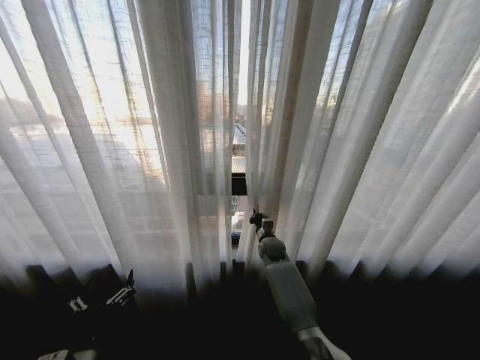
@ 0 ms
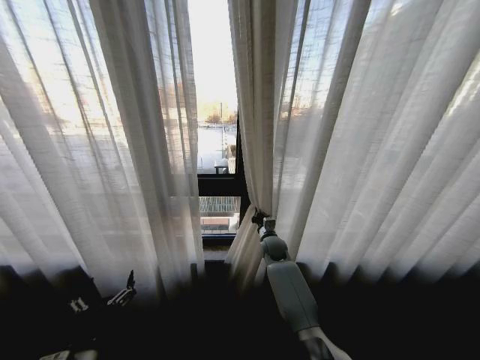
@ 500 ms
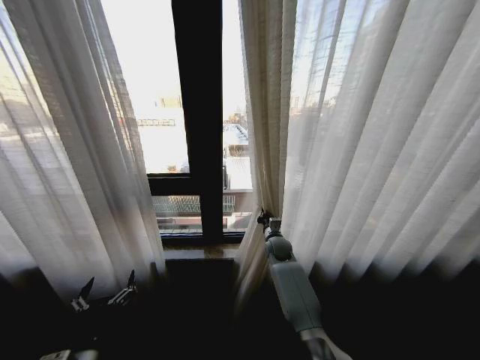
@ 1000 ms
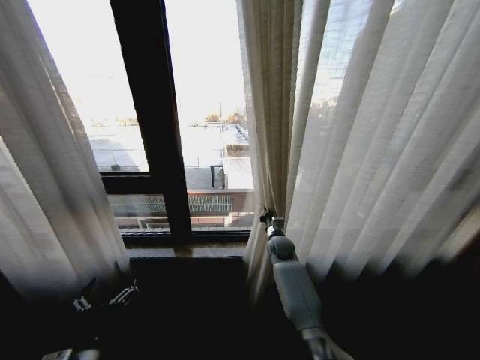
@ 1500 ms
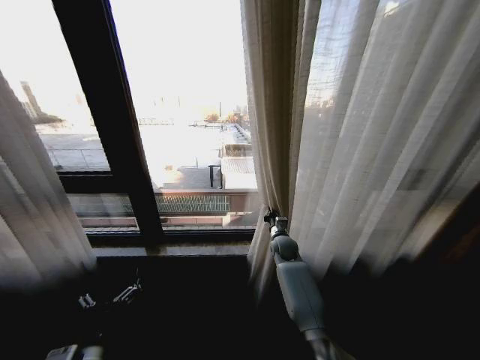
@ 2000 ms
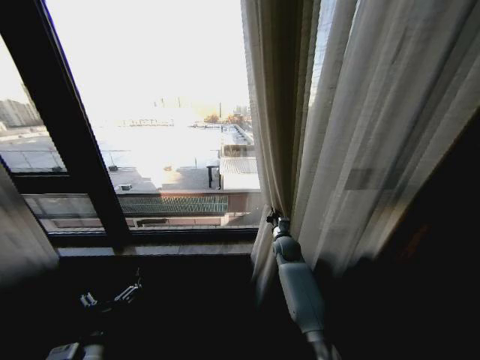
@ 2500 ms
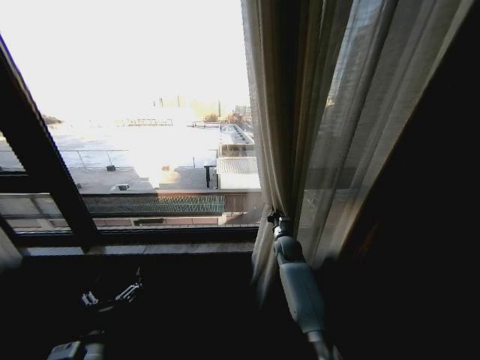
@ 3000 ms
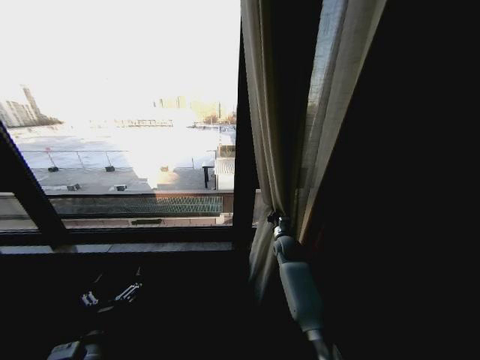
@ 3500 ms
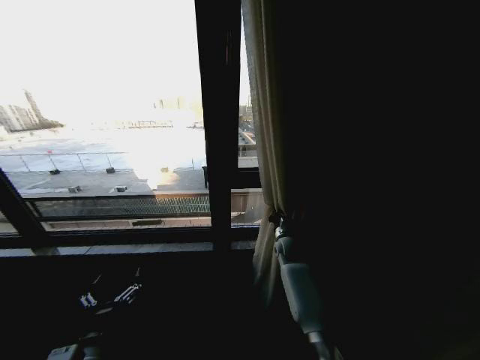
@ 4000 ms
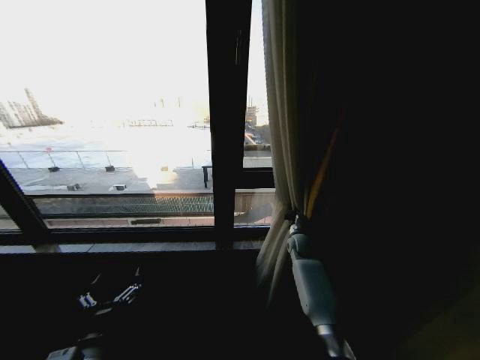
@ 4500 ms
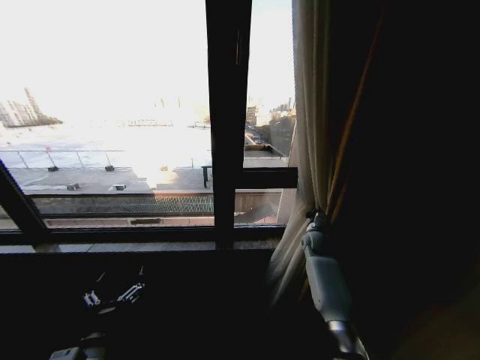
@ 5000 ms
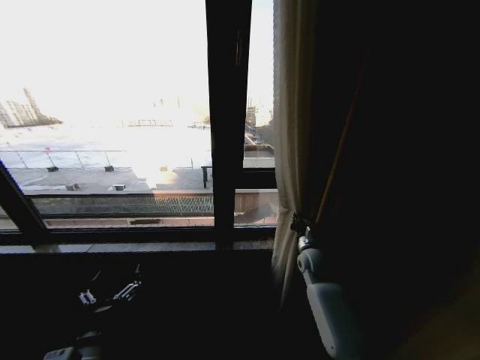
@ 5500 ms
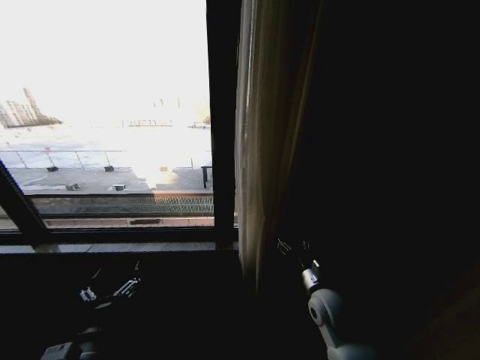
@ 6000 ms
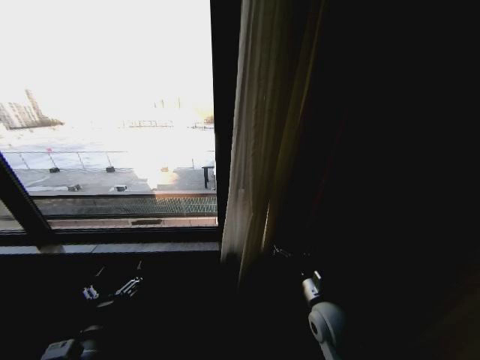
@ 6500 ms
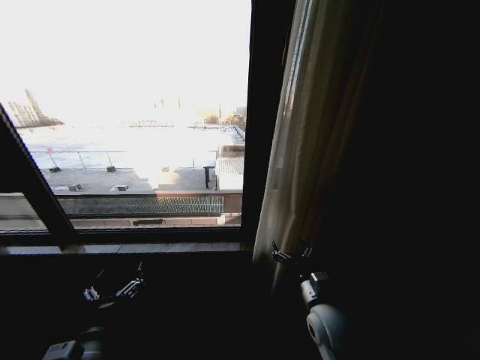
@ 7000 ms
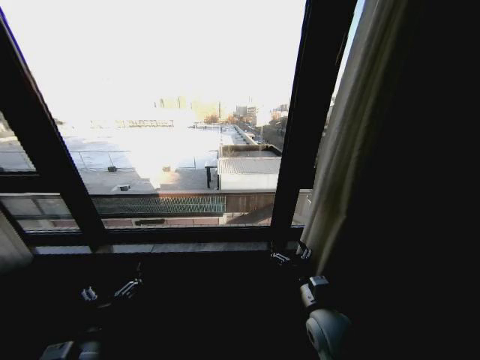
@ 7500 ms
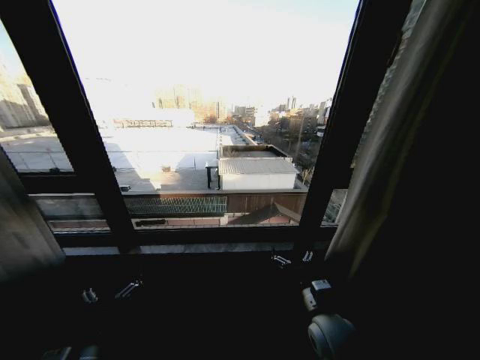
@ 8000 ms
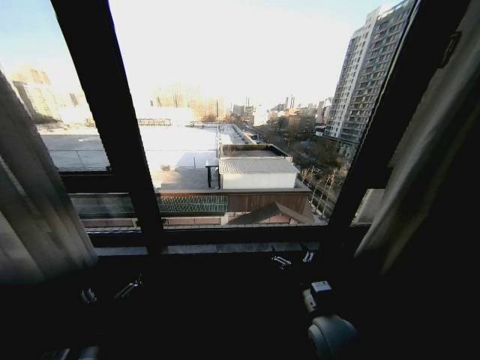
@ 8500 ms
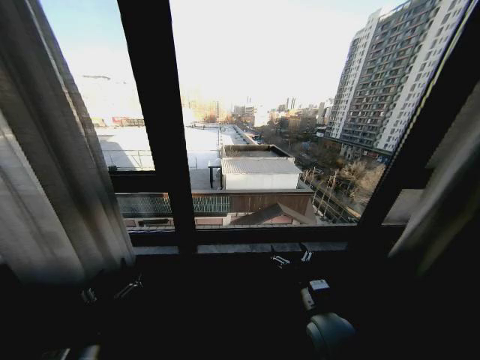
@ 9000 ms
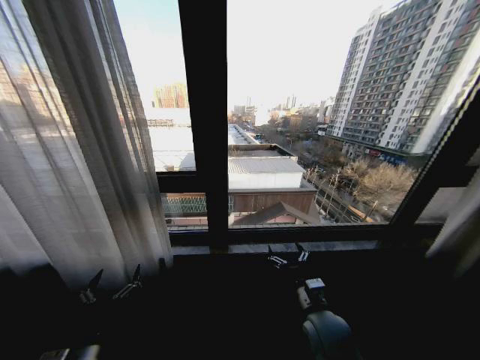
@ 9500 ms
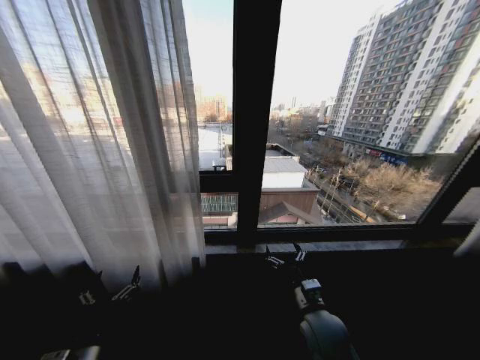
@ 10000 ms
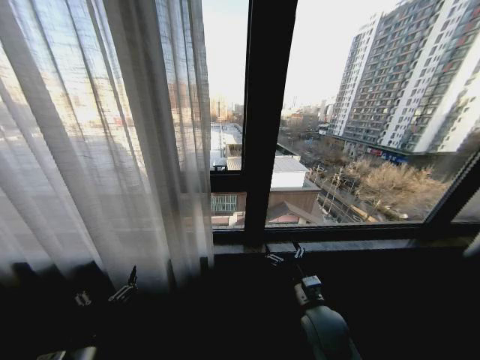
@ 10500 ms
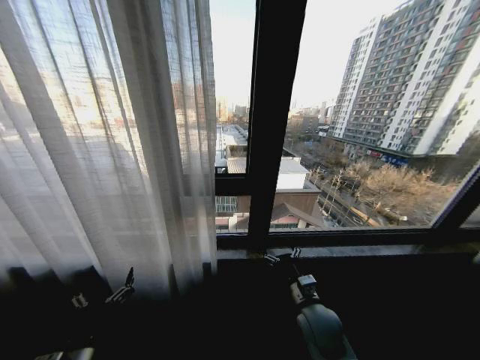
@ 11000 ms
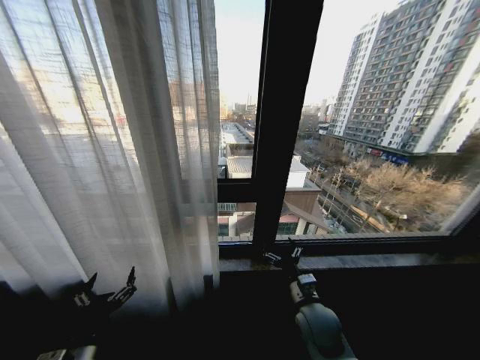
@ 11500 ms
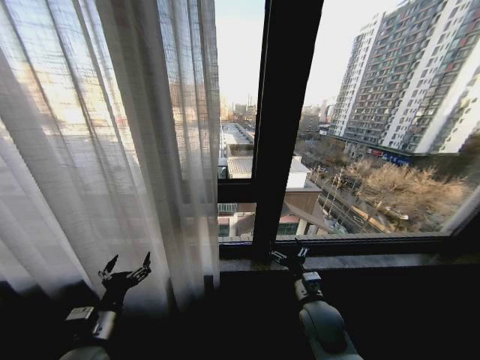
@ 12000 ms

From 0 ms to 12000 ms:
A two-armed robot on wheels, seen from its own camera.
Task of the whole recording: Open the curtains by pulling them apart, changing their state from closed to fully open.
From 4000 ms to 6000 ms: The right gripper heads backward, covering some 20 cm, and opens its fingers.
From 6000 ms to 8000 ms: The right gripper is displaced backward by approximately 5 cm.
From 10000 ms to 12000 ms: The left gripper shifts about 5 cm forward.

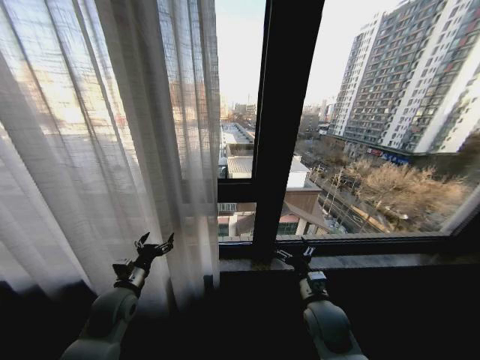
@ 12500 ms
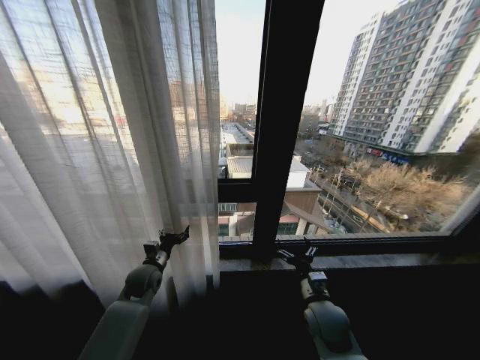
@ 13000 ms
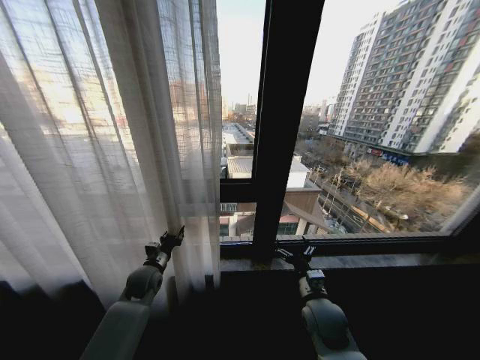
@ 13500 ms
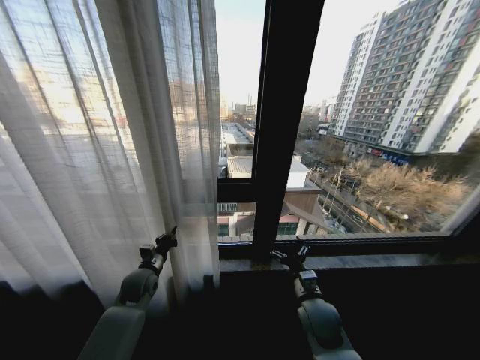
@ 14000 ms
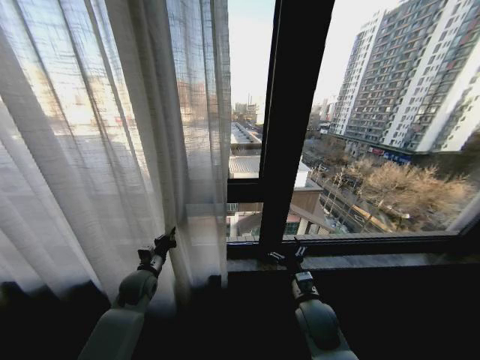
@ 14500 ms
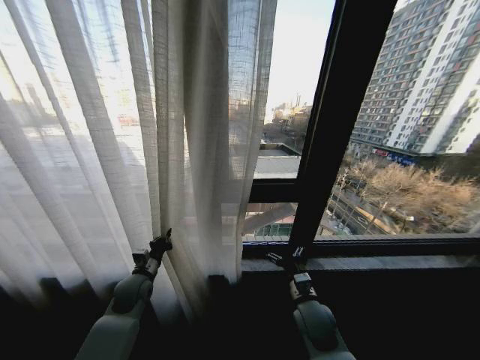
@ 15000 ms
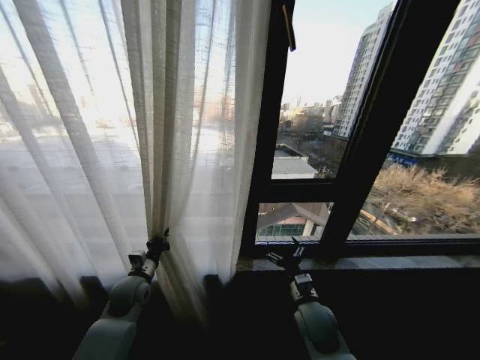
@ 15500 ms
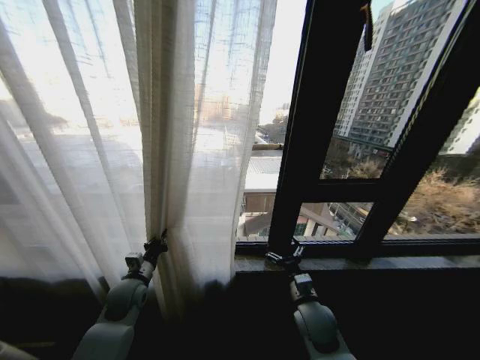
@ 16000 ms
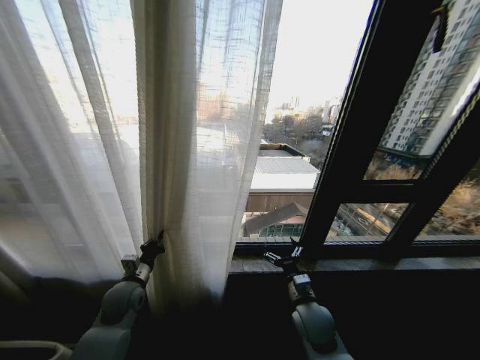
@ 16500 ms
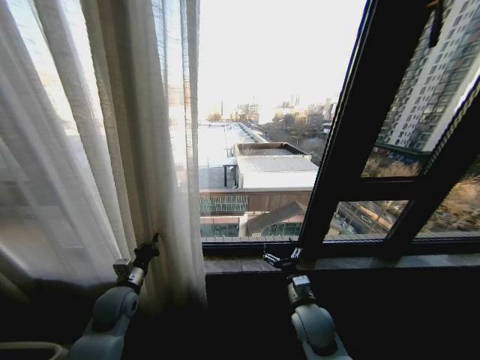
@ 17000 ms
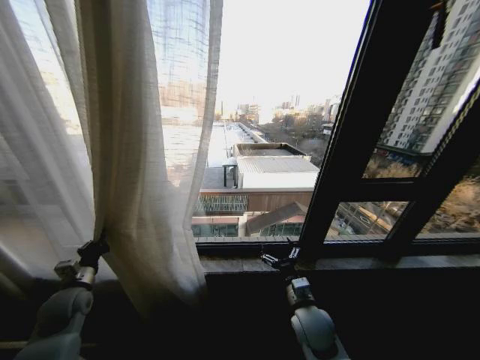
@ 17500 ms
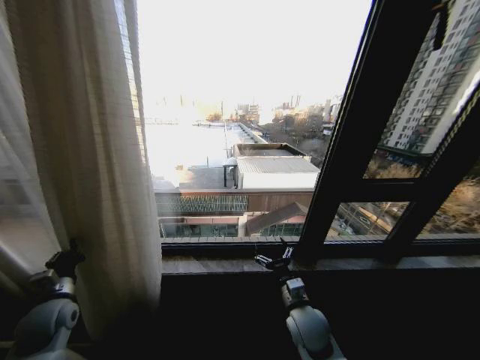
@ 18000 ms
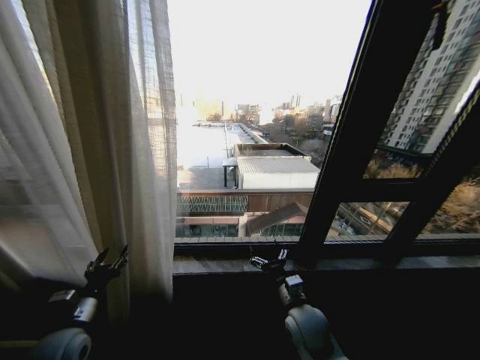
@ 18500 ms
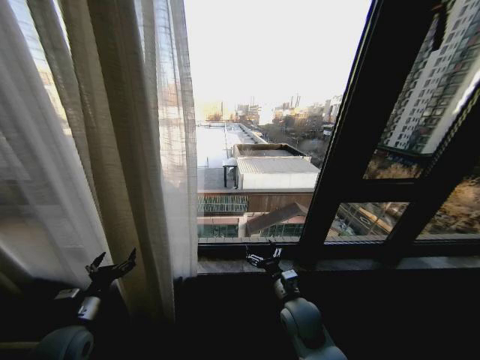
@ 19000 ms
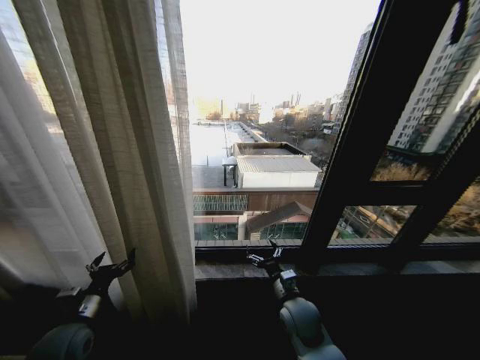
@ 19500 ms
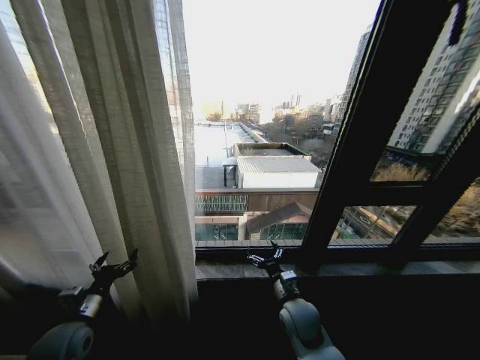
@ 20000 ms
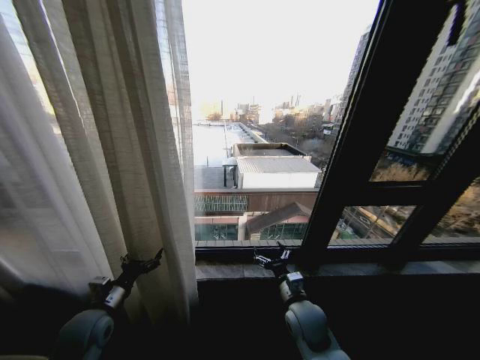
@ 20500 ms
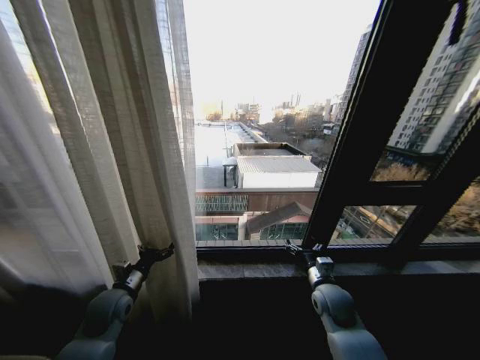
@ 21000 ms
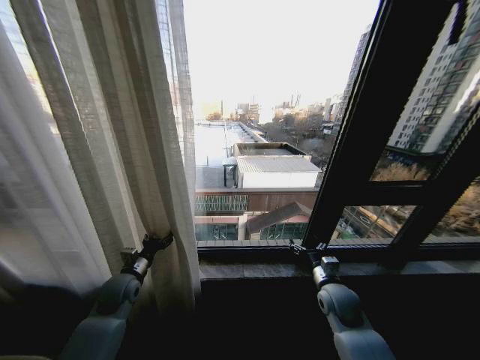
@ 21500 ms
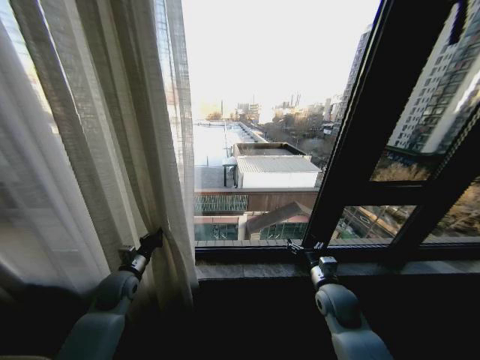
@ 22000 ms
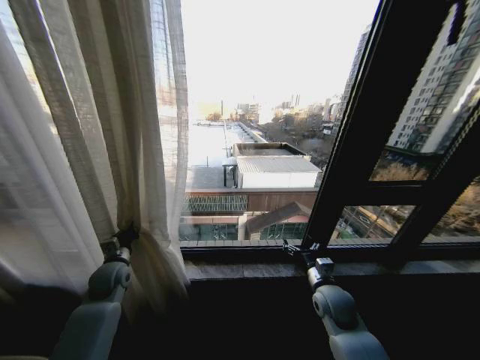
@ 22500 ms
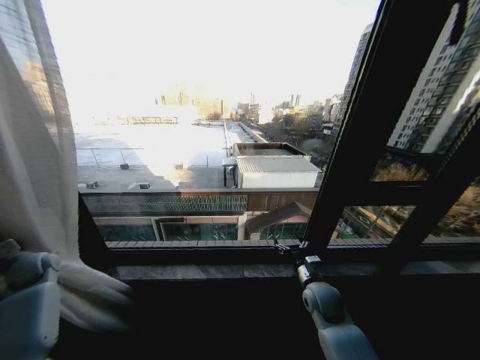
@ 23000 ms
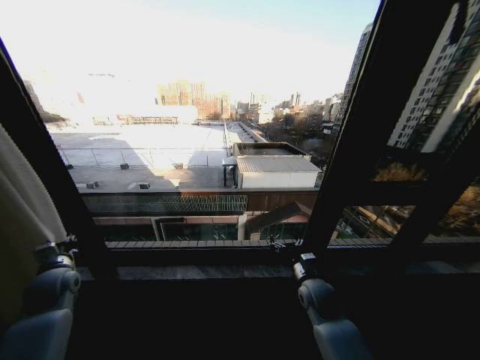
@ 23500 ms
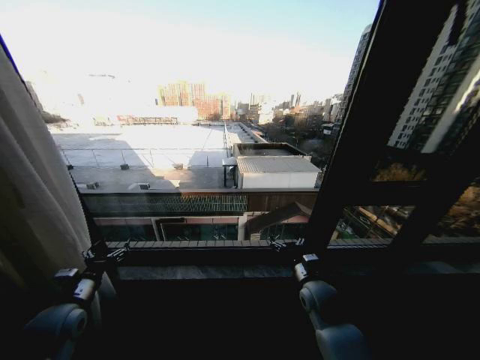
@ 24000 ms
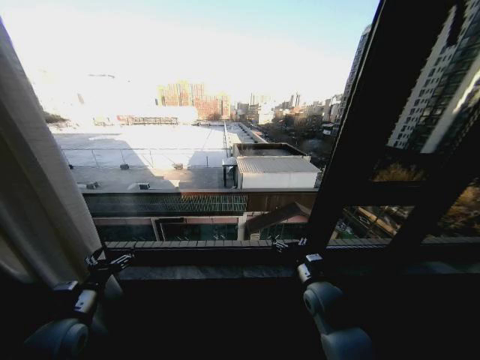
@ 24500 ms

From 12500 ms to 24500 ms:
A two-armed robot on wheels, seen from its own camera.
Task of the whole recording: Open the curtains by pulling them apart, changing their state from closed to fully open.
From 12500 ms to 14500 ms: The left gripper is displaced forward by roughly 5 cm, and closes.
From 16500 ms to 18500 ms: The left gripper shifts about 15 cm backward, and opens up.
From 18500 ms to 20500 ms: The left gripper moves forward, some 5 cm, and opens its fingers.
From 20500 ms to 22500 ms: The right gripper is displaced to the right by roughly 10 cm, while the left gripper moves forward, approximately 10 cm, and closes up.
From 22500 ms to 24500 ms: The left gripper travels backward by some 15 cm, goes to the left and returns, approximately 20 cm each way, and opens up.
